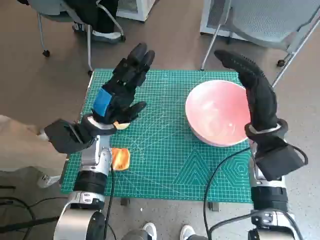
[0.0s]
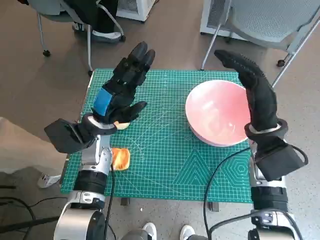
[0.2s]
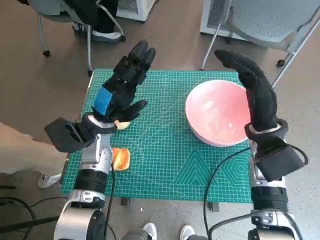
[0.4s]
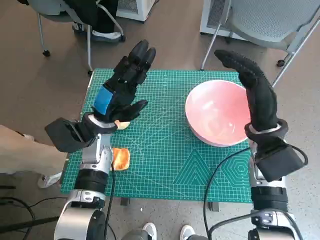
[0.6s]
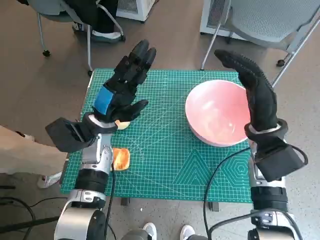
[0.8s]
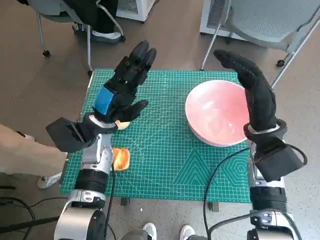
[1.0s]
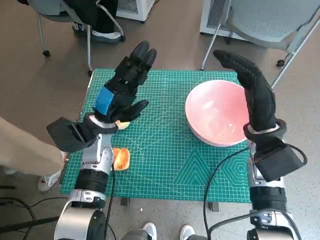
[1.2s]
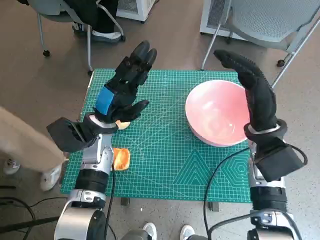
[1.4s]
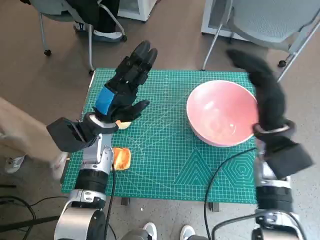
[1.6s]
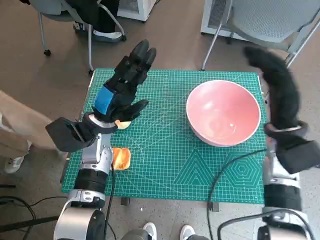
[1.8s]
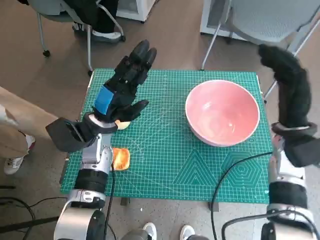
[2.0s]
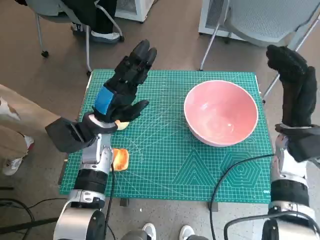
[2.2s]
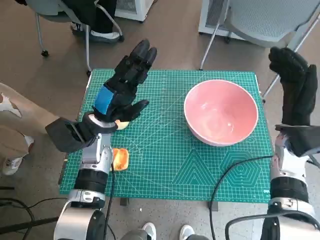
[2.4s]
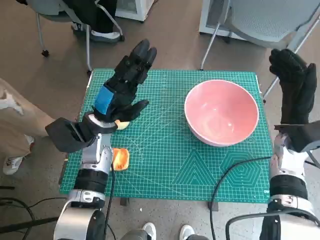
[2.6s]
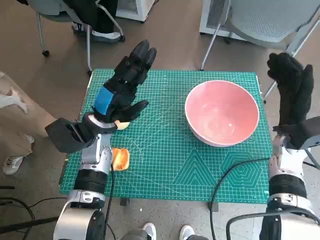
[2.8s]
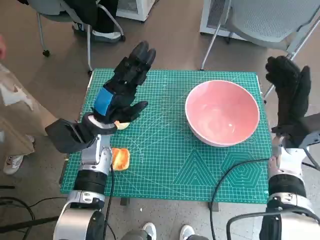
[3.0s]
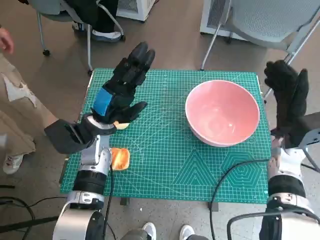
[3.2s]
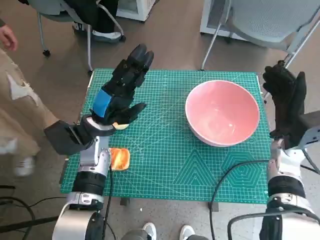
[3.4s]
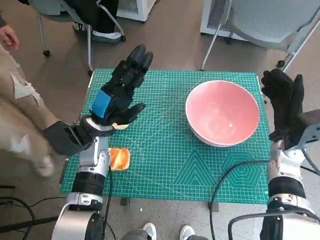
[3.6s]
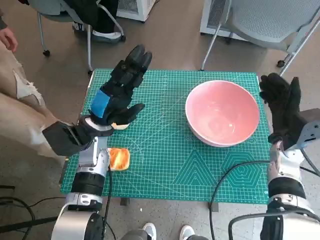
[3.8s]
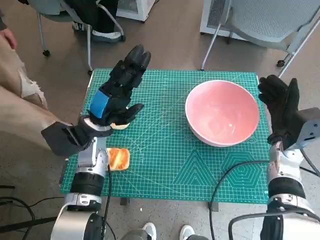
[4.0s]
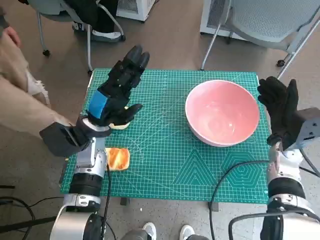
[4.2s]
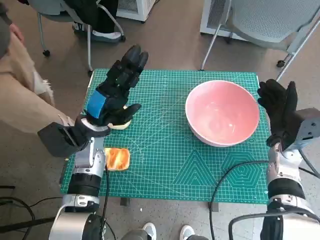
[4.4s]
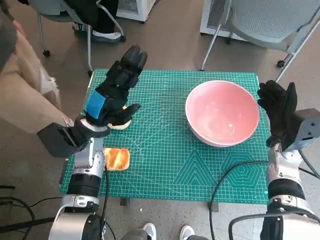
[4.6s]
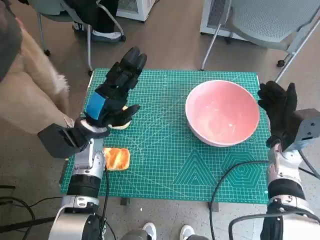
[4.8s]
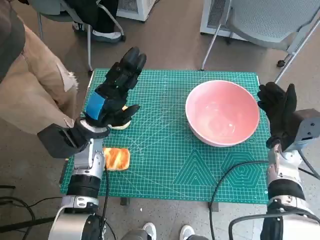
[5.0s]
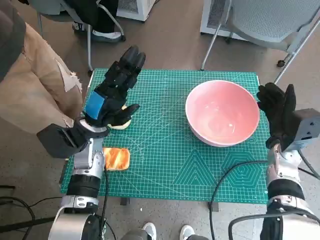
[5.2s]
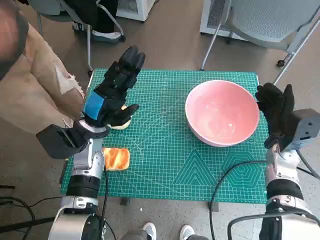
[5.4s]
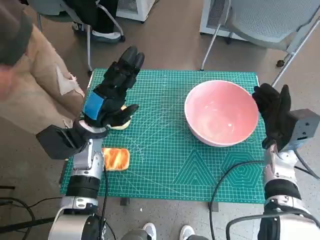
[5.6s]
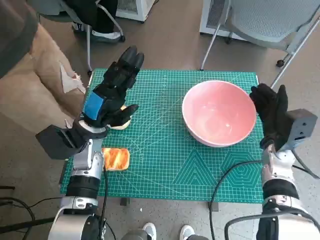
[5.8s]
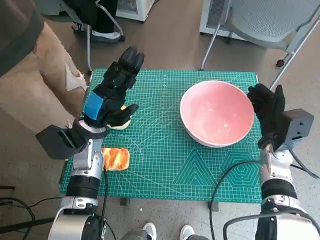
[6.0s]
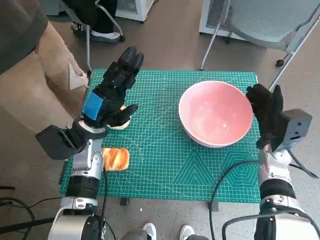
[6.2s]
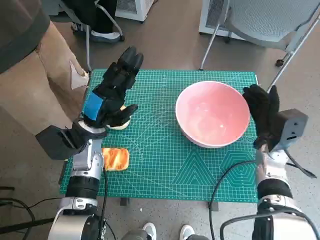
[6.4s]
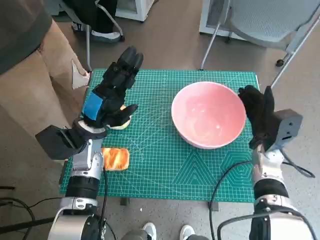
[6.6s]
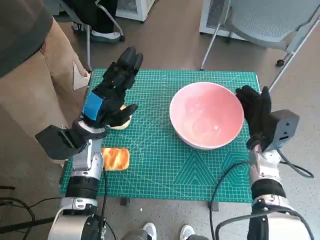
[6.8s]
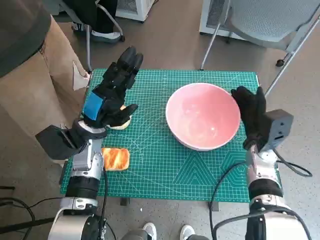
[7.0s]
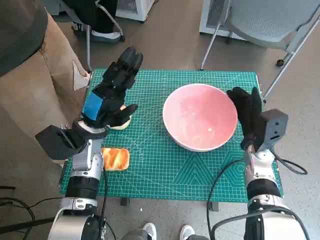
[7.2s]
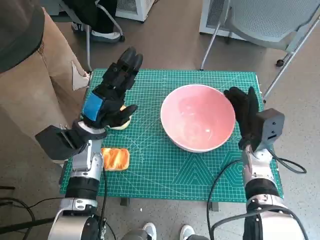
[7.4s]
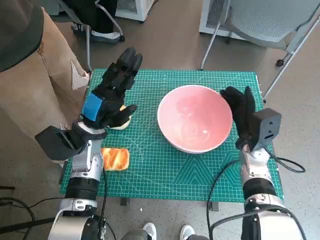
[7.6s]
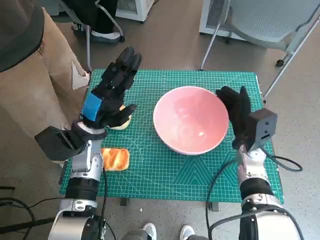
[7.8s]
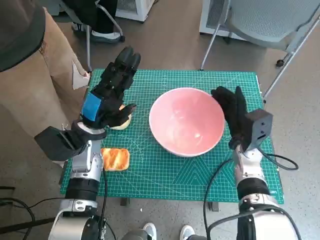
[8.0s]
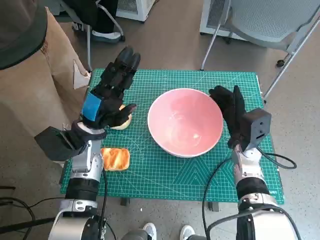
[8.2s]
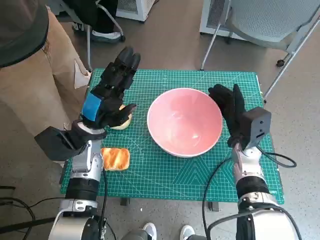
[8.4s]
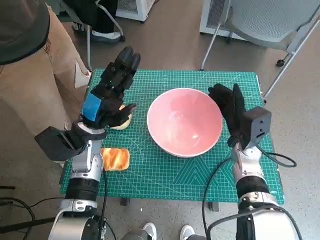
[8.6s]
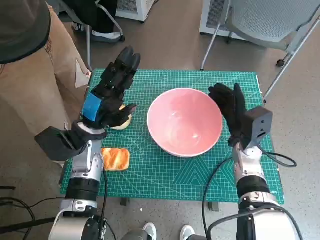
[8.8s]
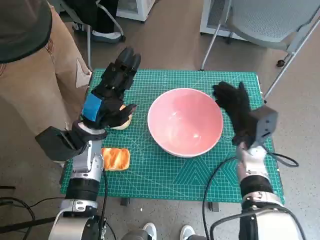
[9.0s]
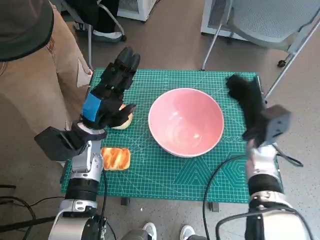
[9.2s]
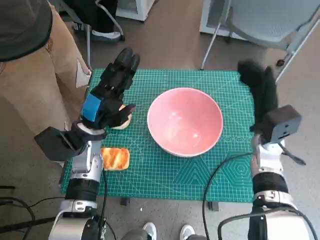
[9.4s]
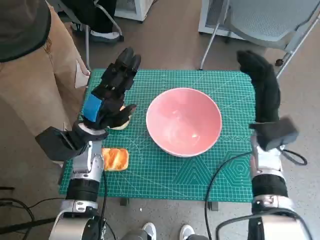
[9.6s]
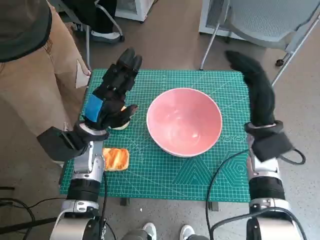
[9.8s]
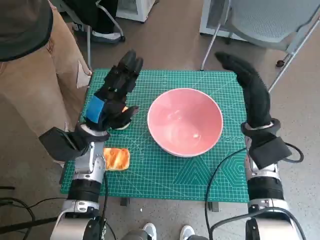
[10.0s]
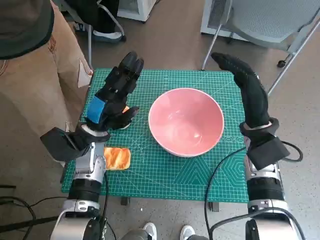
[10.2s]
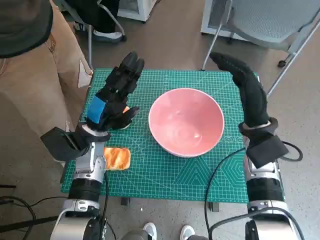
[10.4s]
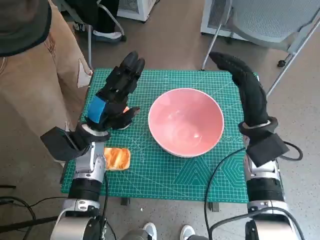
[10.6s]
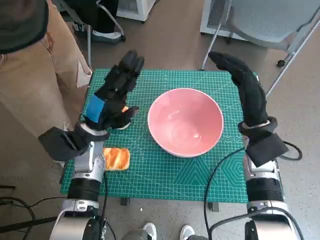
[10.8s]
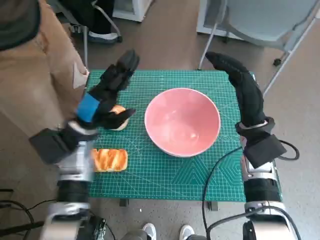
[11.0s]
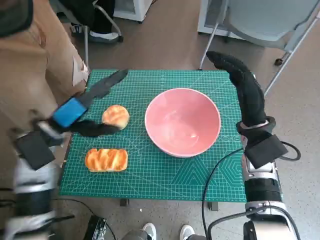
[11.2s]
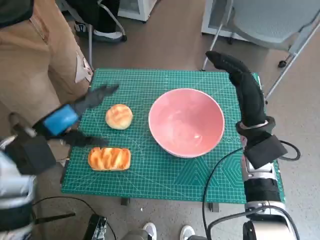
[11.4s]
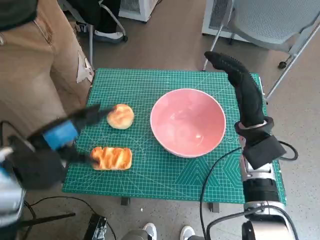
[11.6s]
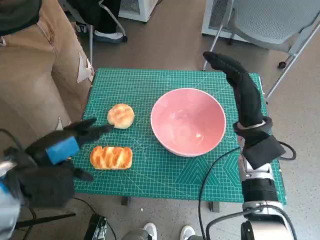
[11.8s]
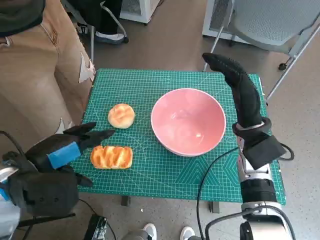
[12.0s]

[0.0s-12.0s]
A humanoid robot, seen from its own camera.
Step, 0.0s to 9.0s: Move the pink bowl to the center of table with right hand.
1.6s to 3.0s: The right hand travels to the right by roughly 5 cm.
4.4s to 6.0s: There are only small adjustments of the hands.
7.6s to 9.0s: The hands make only small movements.
9.0s to 10.4s: The right hand travels upward by approximately 5 cm.
10.4s to 12.0s: The left hand travels backward, upward and to the left by roughly 15 cm.

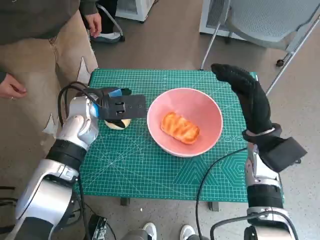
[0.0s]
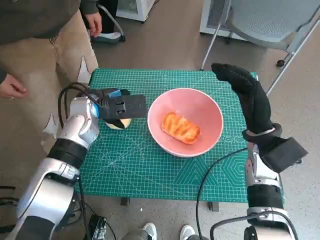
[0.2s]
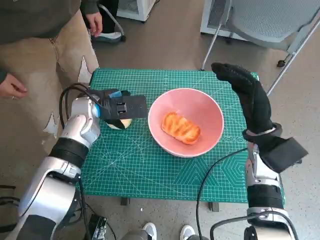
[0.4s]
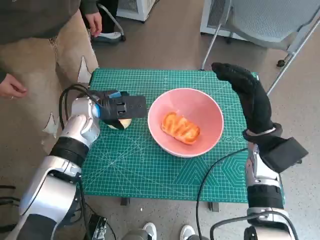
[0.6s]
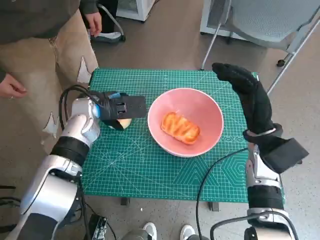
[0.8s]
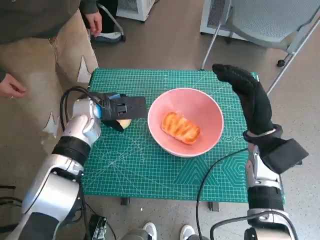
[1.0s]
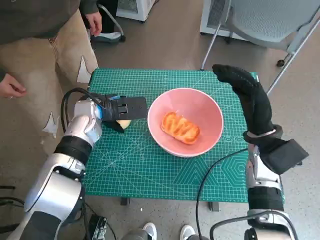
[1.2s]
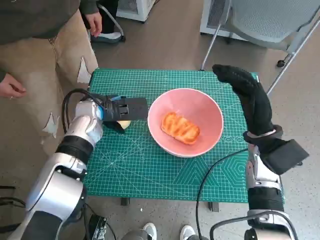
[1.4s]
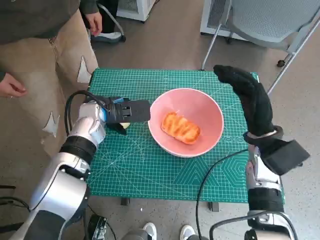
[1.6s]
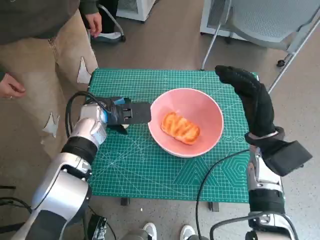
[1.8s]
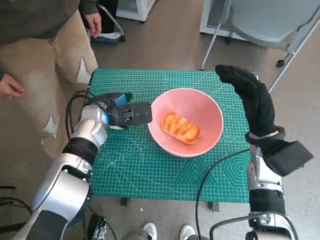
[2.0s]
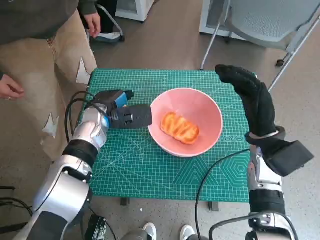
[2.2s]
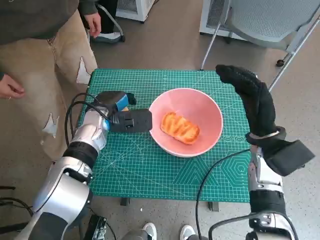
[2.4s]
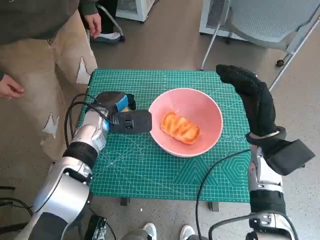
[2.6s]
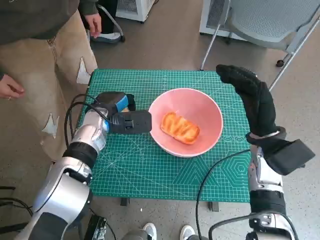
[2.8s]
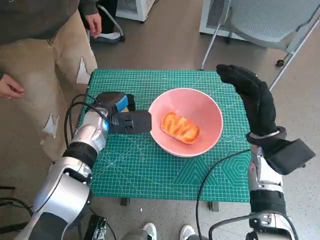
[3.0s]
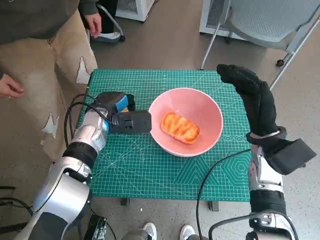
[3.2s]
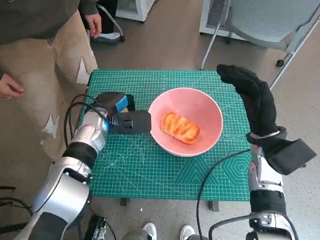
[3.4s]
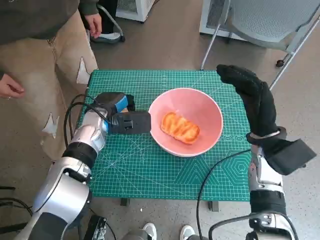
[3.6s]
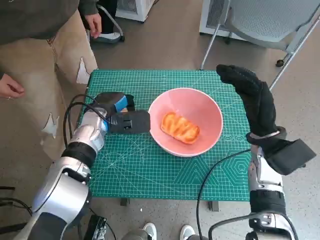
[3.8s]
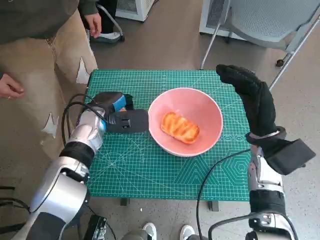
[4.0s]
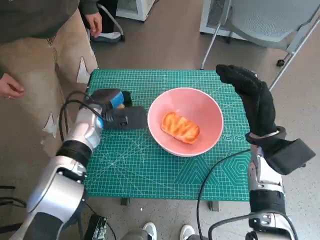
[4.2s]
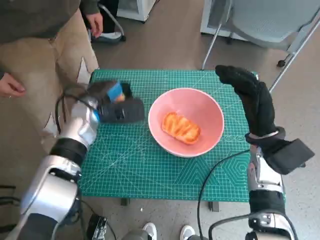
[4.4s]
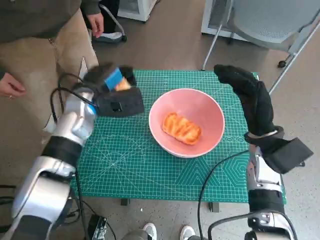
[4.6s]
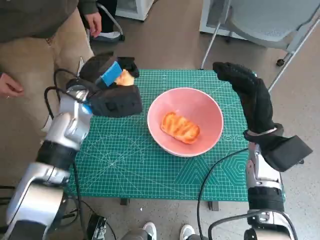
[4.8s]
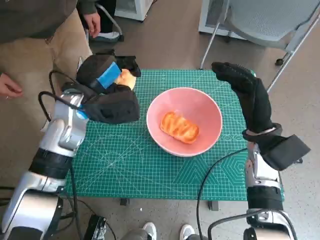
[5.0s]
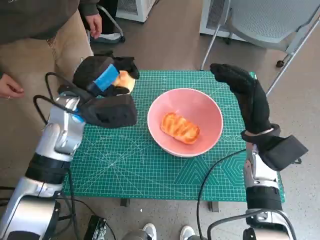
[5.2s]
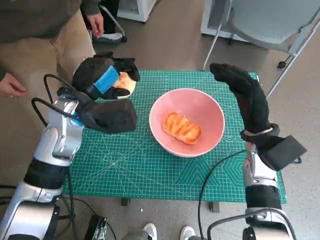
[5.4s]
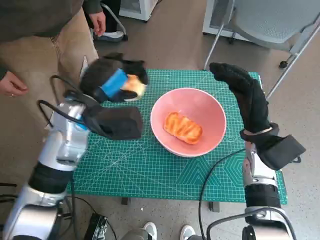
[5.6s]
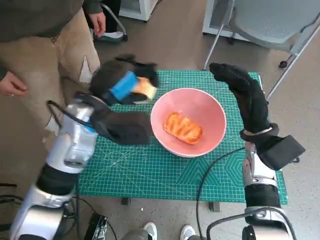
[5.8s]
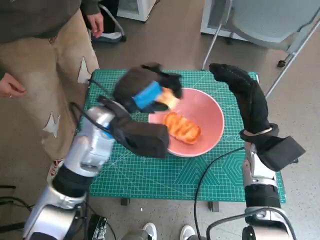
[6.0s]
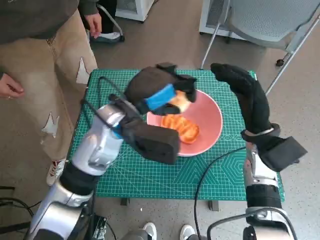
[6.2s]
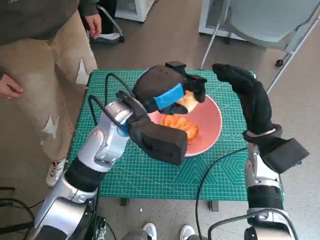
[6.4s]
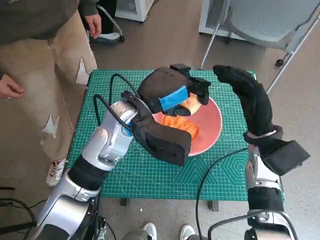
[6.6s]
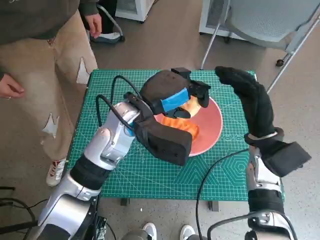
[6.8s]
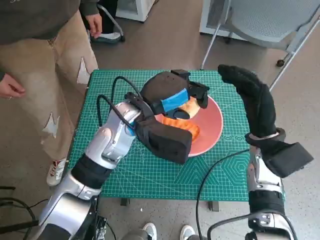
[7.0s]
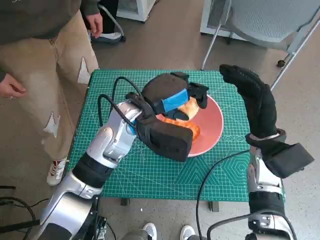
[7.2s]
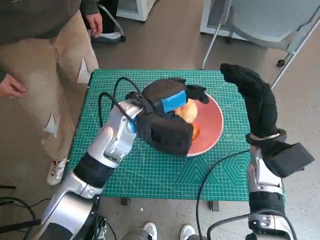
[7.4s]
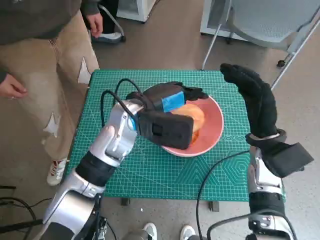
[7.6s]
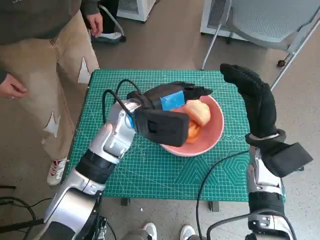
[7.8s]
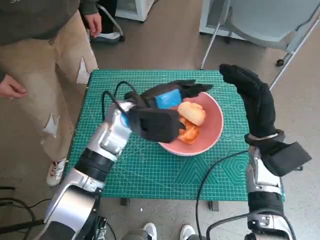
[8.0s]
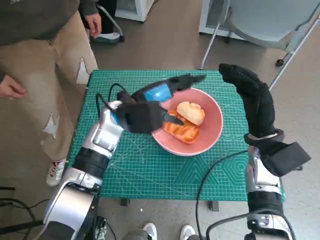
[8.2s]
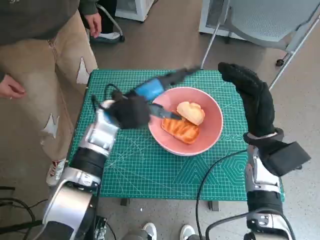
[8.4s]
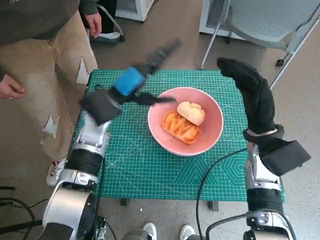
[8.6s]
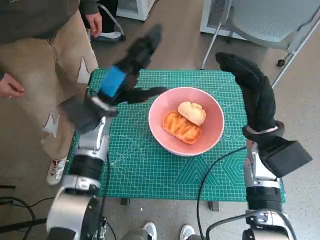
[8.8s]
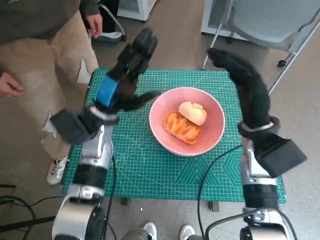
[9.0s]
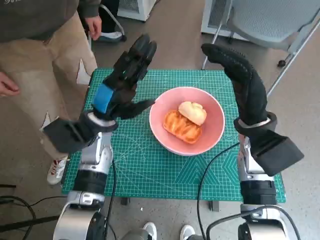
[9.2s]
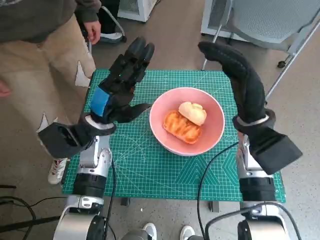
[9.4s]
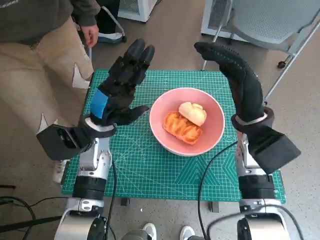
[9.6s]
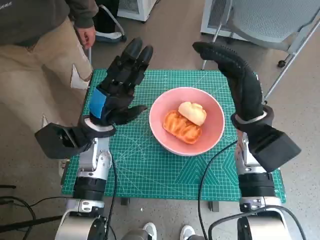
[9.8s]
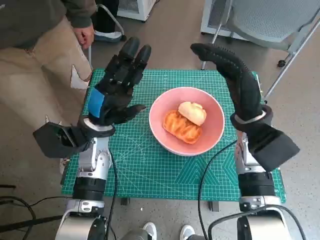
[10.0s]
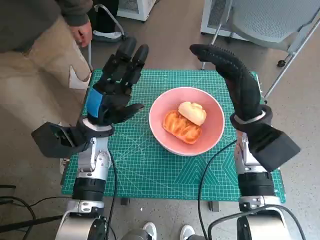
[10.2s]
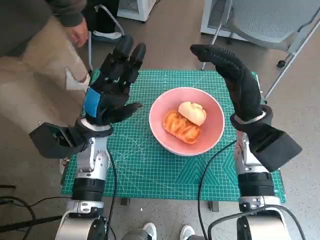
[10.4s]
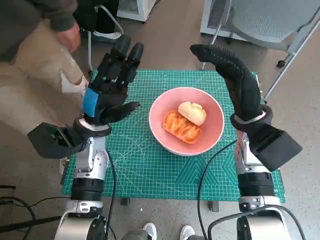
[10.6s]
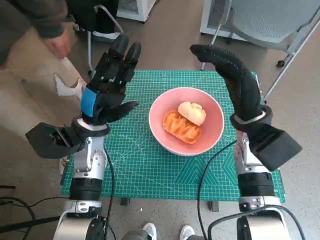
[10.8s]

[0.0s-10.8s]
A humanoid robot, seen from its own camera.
Step, 0.0s to 2.4s: Grasp the round bread with left hand.
Step, 2.6s to 8.0s: Place the round bread in pink bowl with left hand.
0.0s to 3.0s: The hands make only small movements.
3.0s to 4.6s: The left hand is displaced upward by approximately 5 cm.
4.6s to 6.2s: The left hand goes about 10 cm to the right and backward.
7.8s to 9.2s: The left hand shifts approximately 10 cm to the left.
